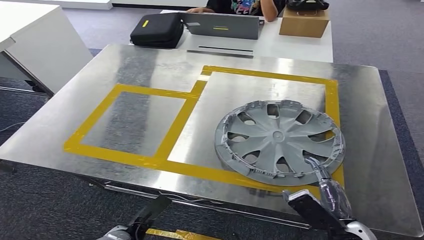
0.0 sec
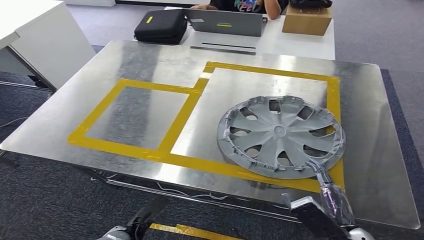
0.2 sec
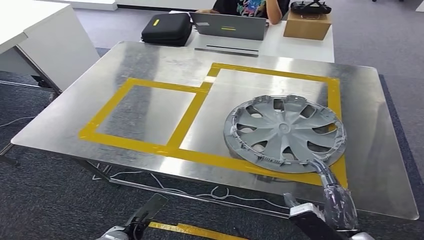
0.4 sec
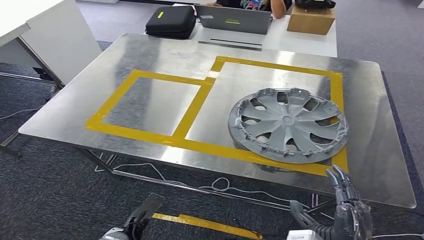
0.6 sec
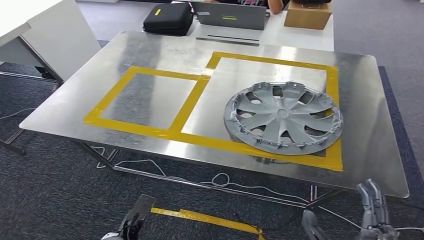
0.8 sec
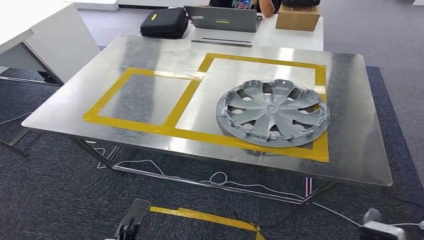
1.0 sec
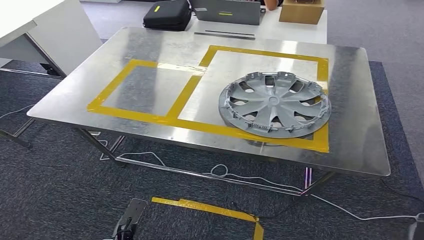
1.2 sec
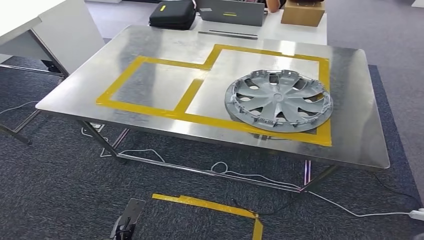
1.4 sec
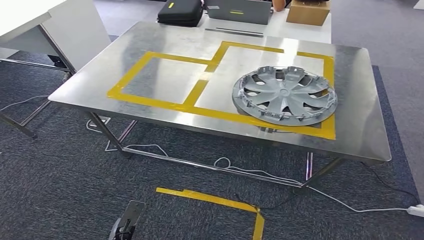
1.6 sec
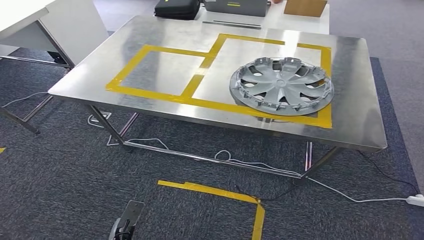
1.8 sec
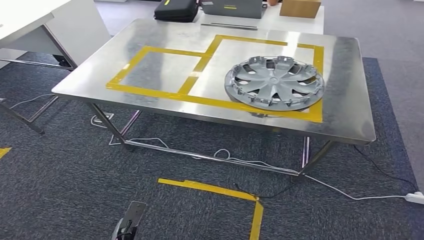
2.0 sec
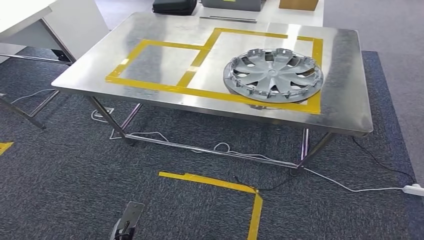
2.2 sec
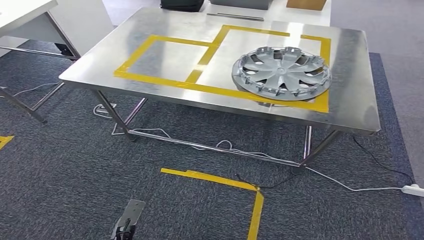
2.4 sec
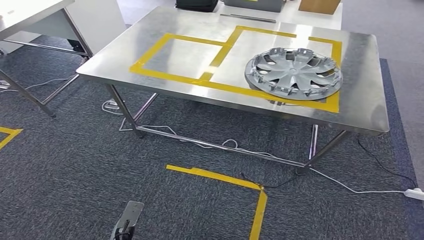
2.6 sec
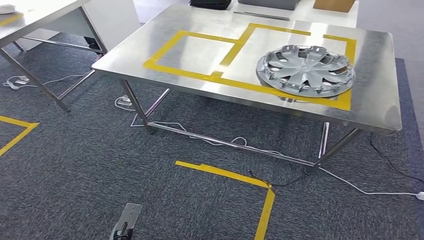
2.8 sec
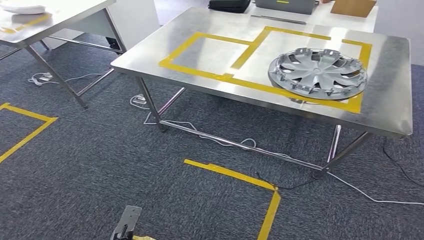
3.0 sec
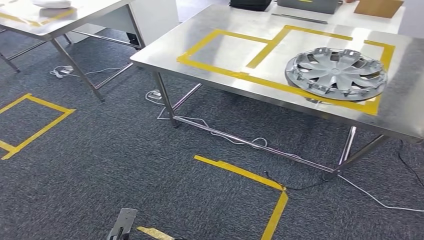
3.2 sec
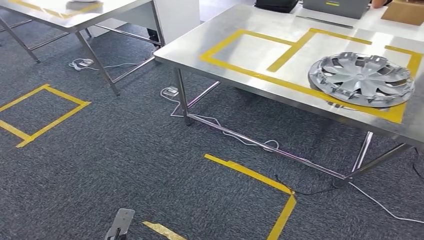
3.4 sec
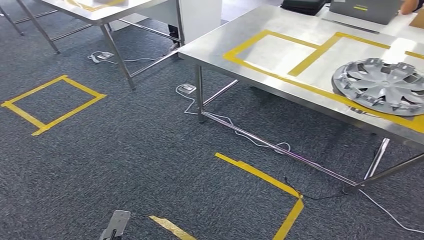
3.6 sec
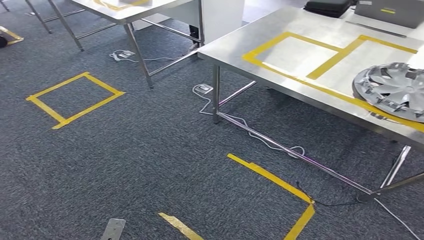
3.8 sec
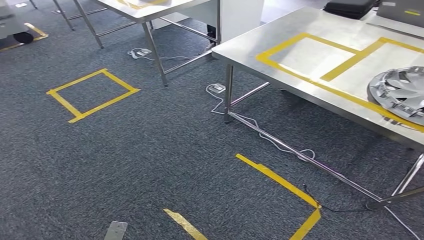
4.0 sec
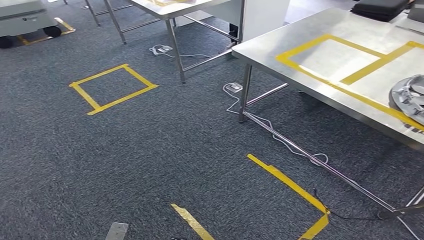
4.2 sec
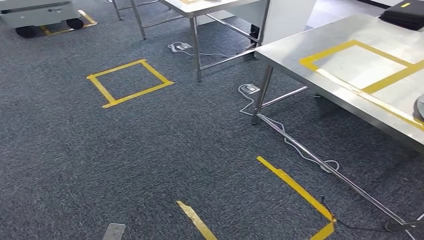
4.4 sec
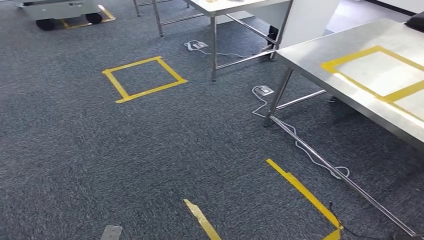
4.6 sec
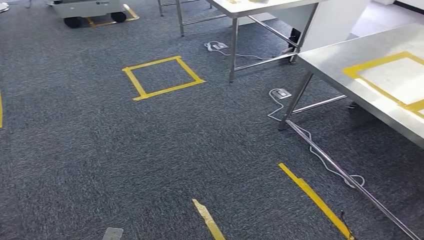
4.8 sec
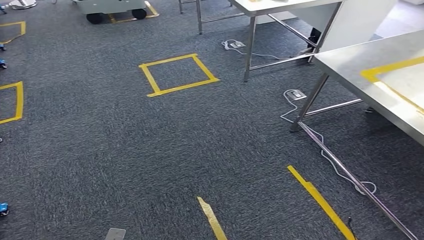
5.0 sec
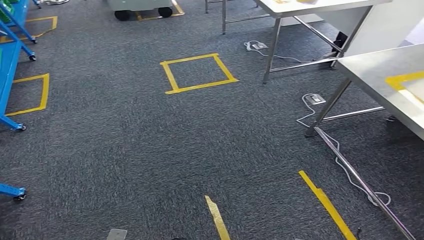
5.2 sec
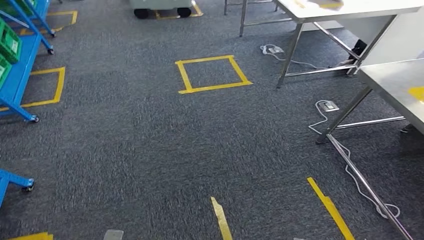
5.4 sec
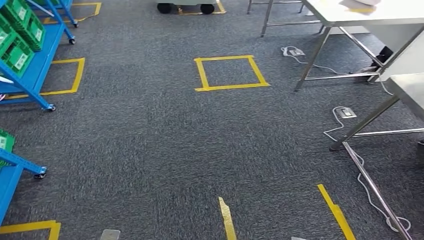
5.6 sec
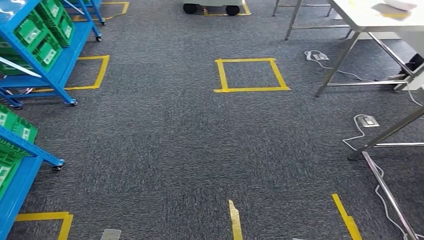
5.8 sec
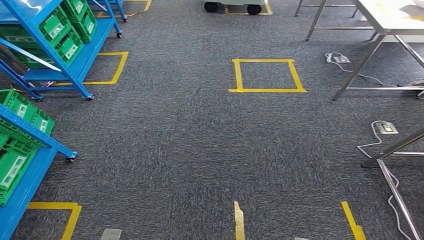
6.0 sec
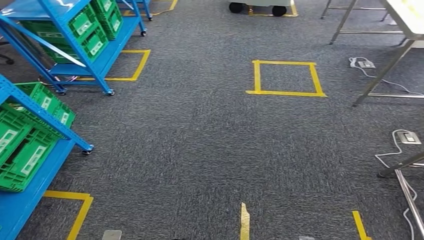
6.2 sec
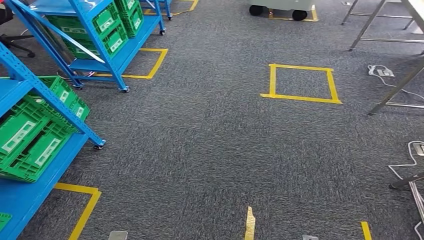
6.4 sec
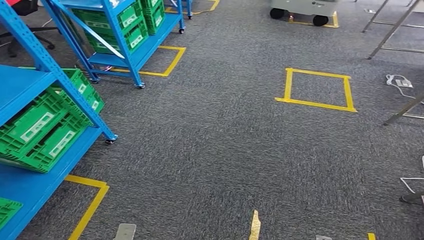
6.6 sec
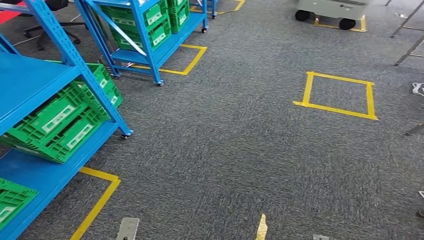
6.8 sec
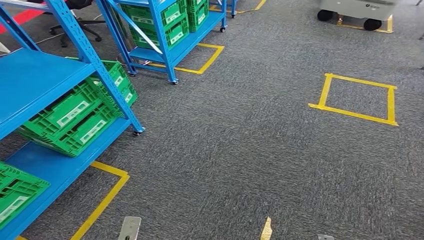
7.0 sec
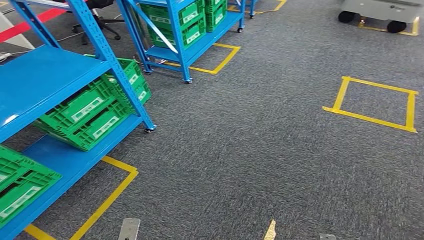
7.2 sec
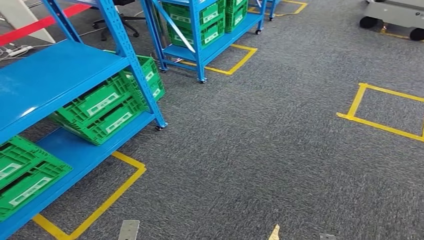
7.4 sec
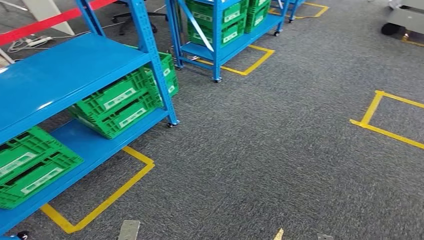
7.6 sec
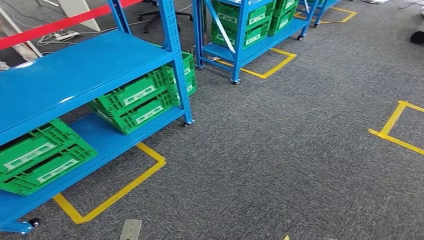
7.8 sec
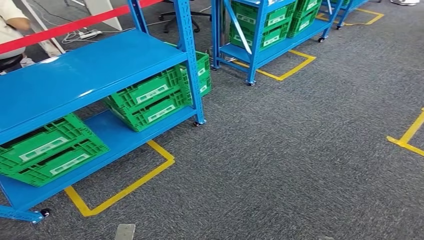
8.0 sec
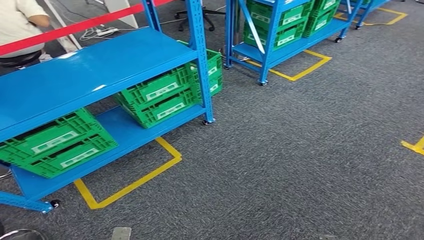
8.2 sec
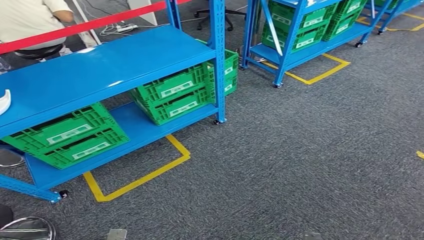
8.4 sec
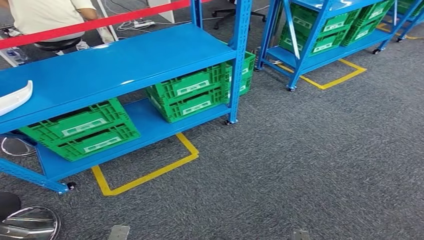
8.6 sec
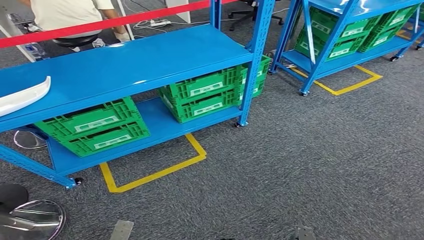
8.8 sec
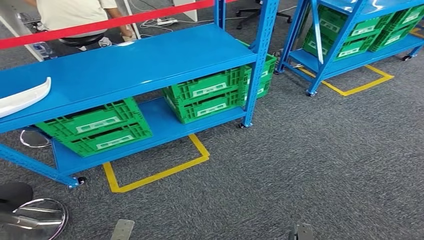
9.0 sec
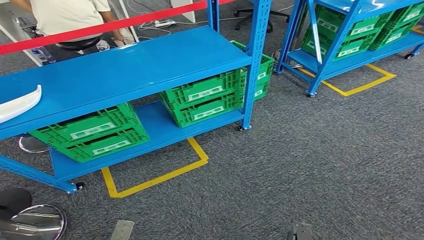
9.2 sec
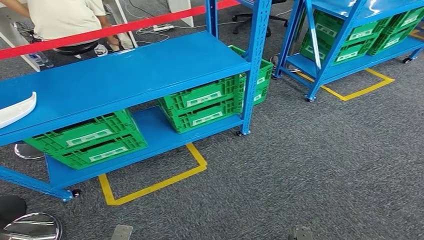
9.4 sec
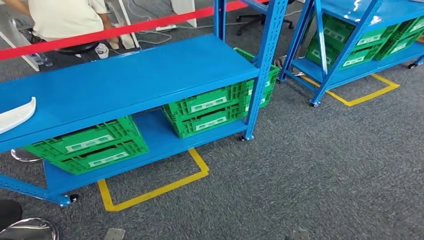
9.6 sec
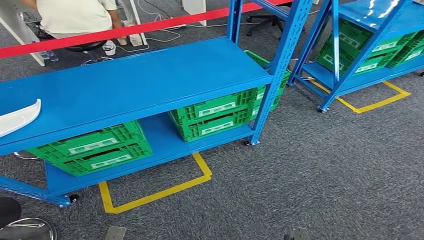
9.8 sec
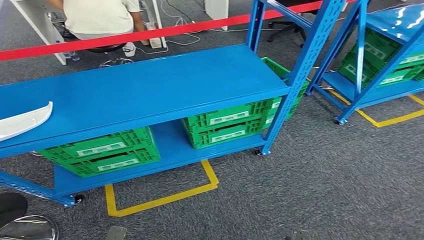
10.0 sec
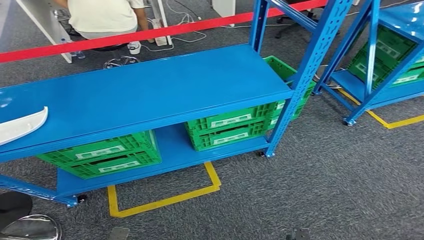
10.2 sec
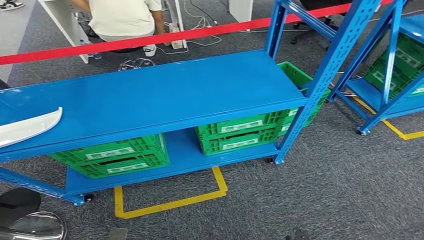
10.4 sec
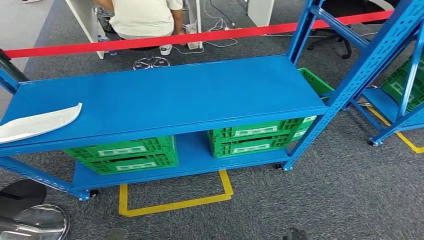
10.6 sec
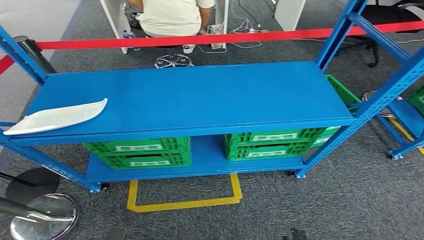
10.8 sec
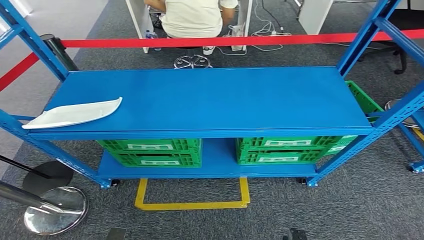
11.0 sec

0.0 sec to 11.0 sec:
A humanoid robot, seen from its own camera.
Step, 1.0 sec to 11.0 sec: Return to the initial position at the workbench.
